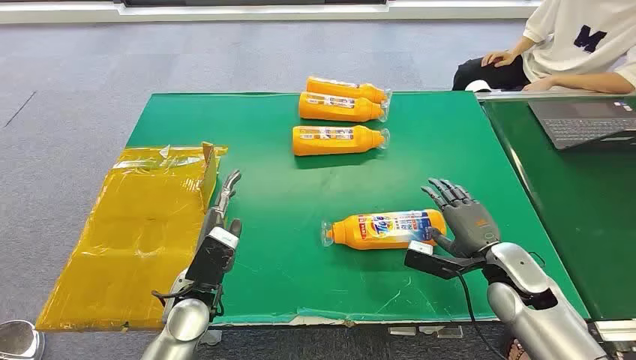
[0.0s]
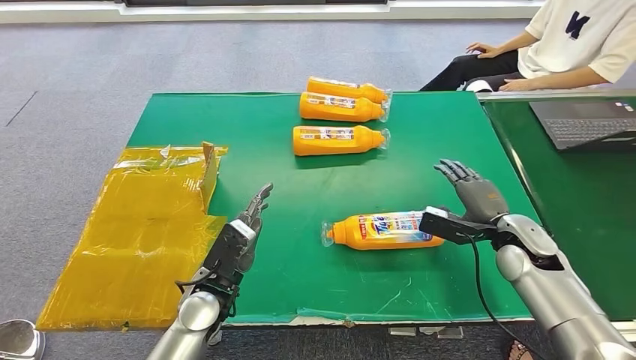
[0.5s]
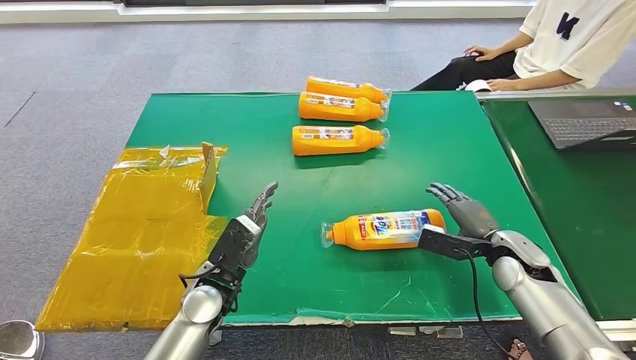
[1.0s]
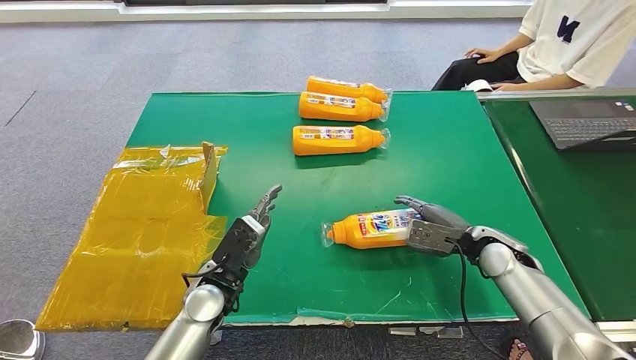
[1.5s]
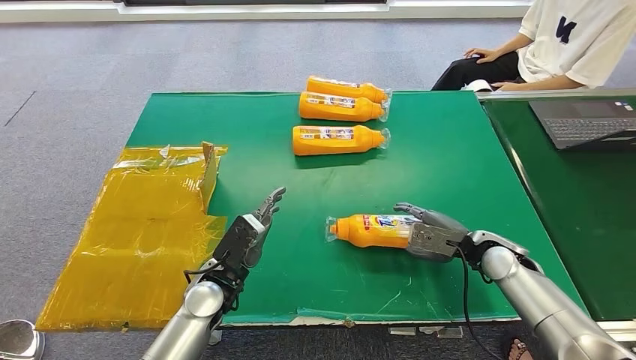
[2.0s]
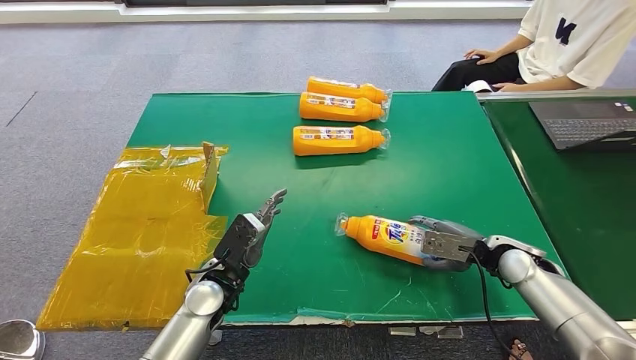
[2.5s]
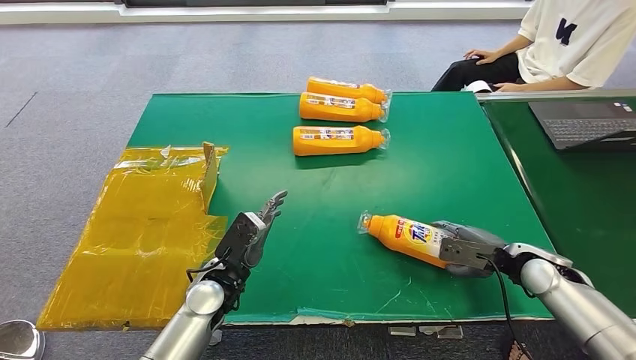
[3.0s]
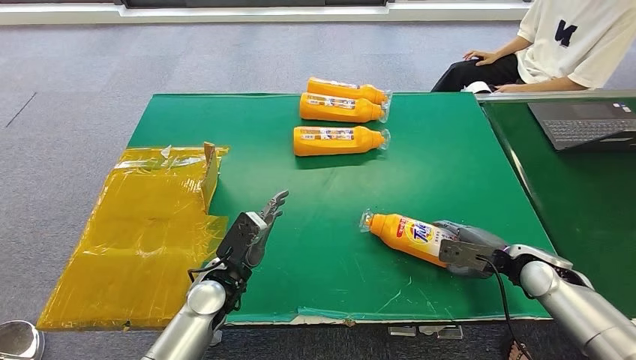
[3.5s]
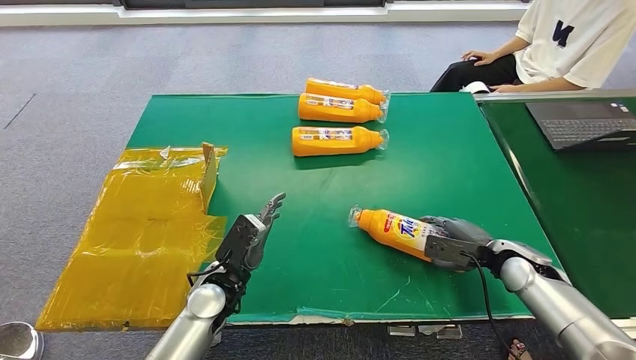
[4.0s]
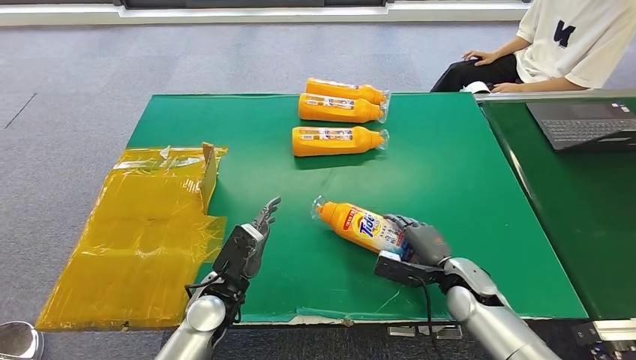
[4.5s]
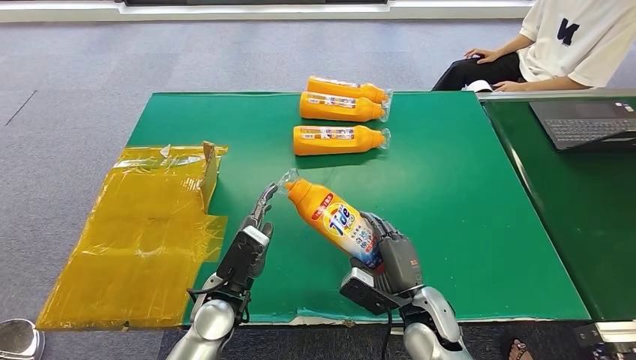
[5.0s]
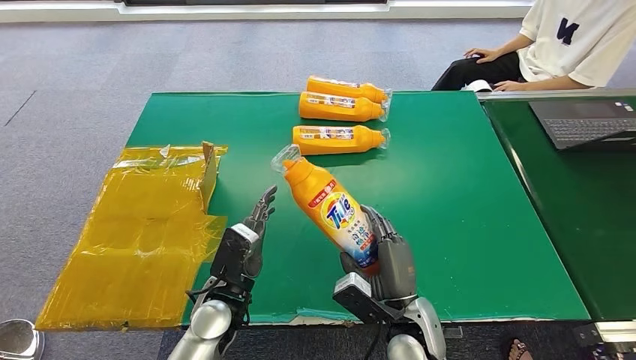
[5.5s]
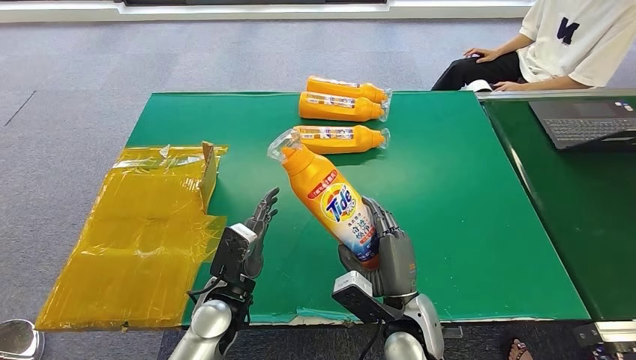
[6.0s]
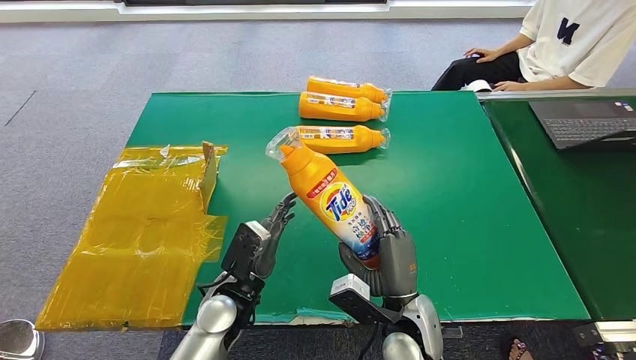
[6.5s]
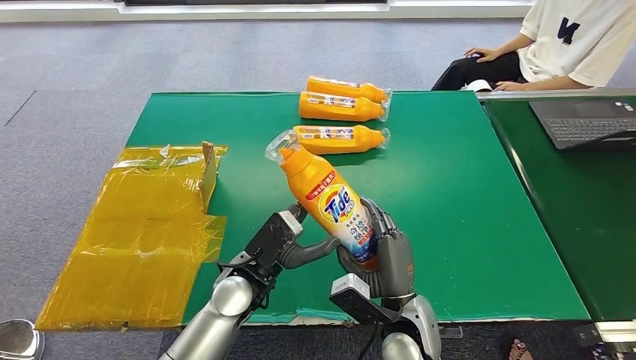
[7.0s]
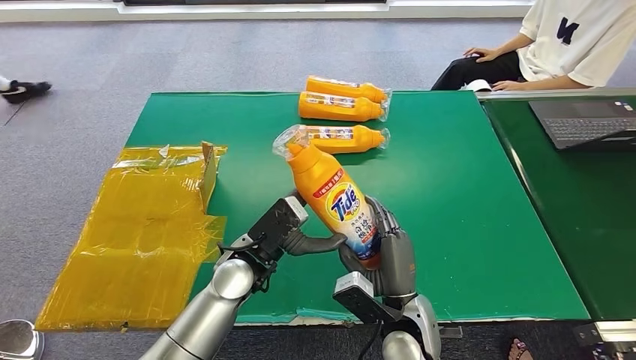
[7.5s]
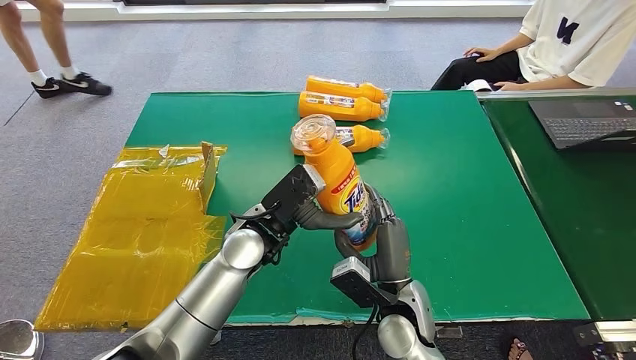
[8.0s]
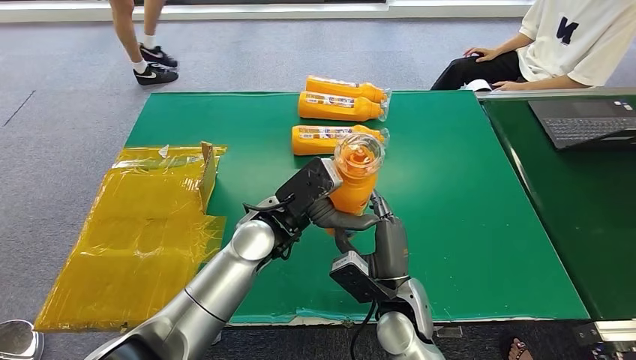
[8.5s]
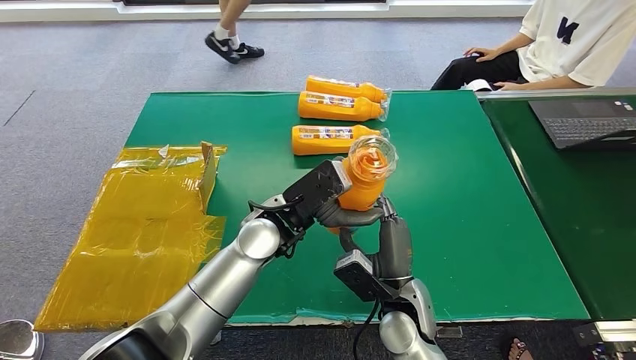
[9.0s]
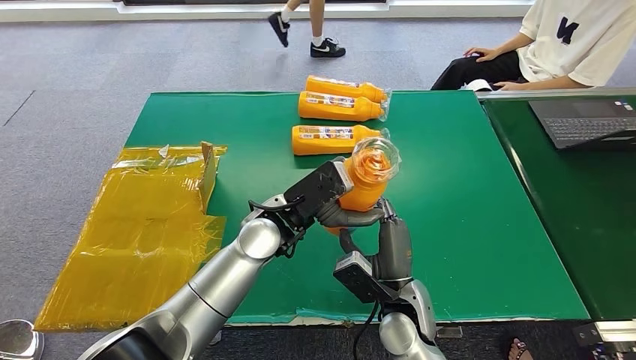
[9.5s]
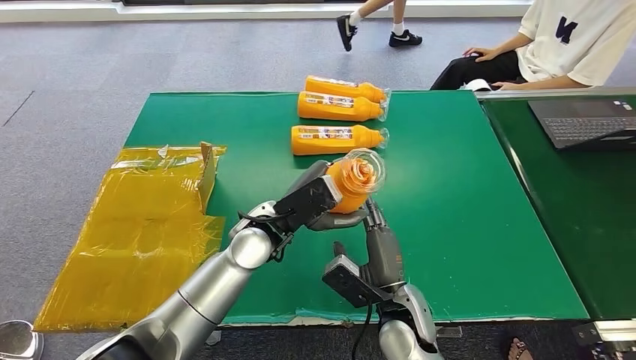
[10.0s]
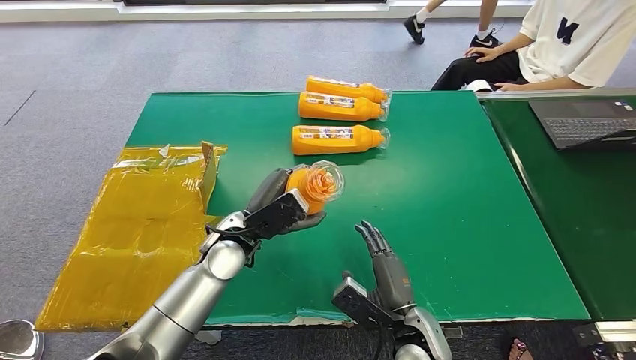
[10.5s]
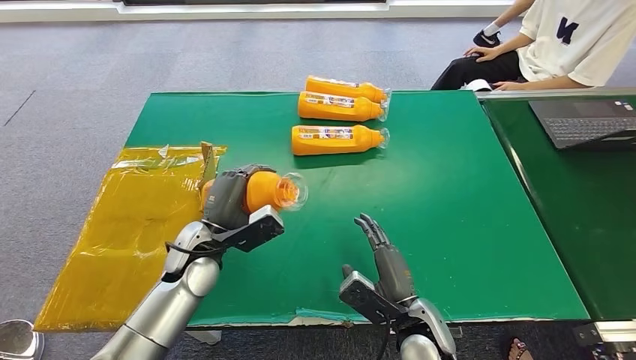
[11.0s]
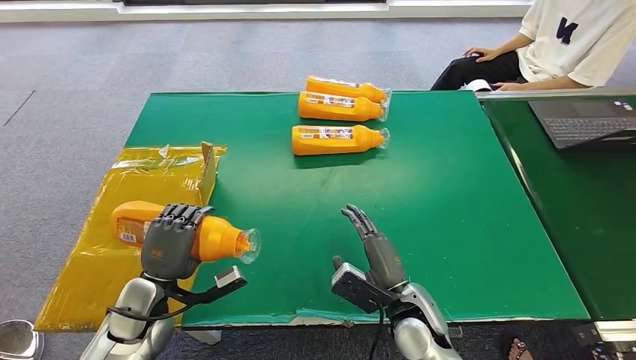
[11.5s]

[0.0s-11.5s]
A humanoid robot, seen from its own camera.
Step, 0.0s to 5.0s: Pick up the bottle from the table.
Step, 6.0s to 11.5s: Turn the bottle to the front side.
6.0s to 7.5s: The left hand travels upward and forward by approximately 10 cm.
7.5s to 9.5s: The left hand goes approximately 5 cm upward.
9.5s to 11.5s: The left hand moves to the left, downward and backward, approximately 30 cm.

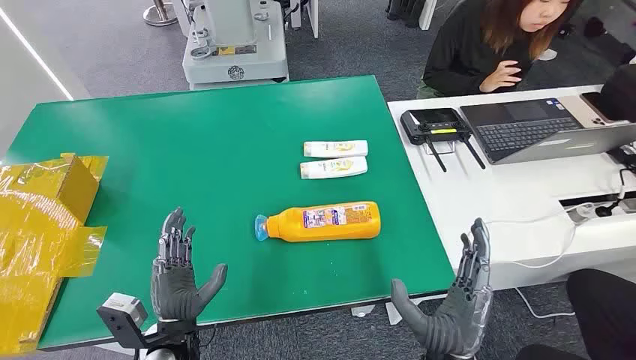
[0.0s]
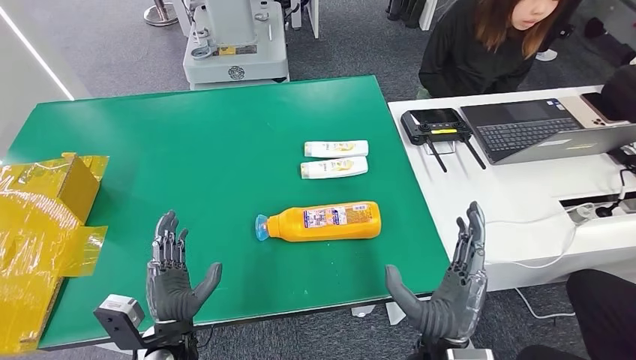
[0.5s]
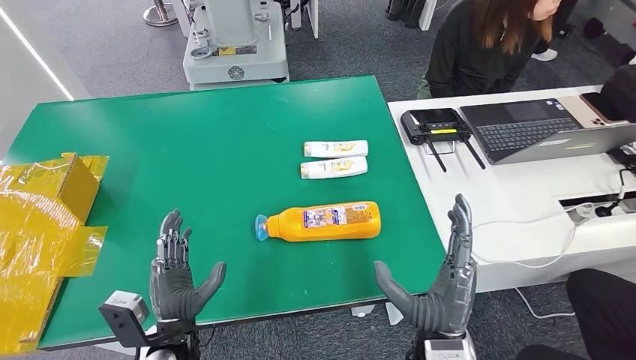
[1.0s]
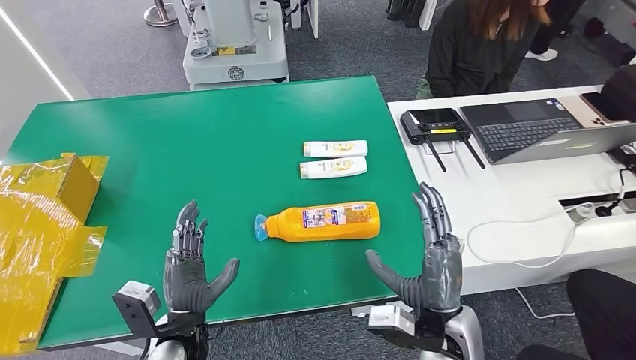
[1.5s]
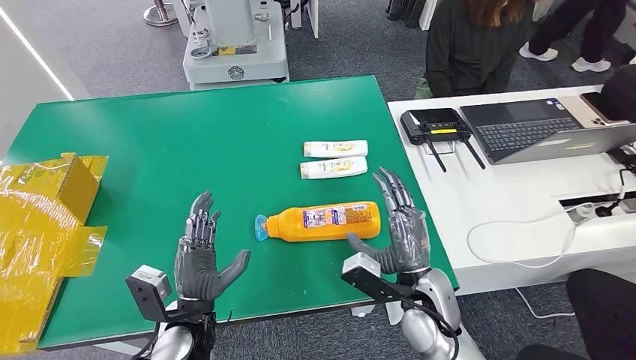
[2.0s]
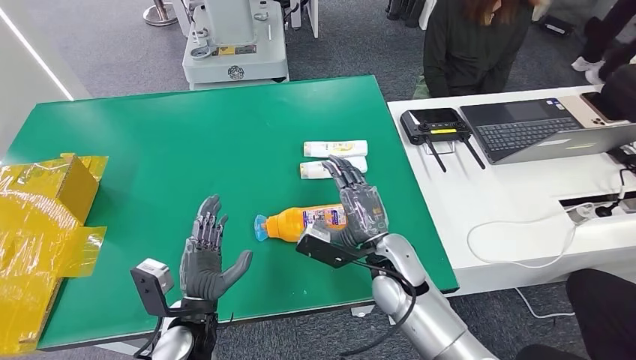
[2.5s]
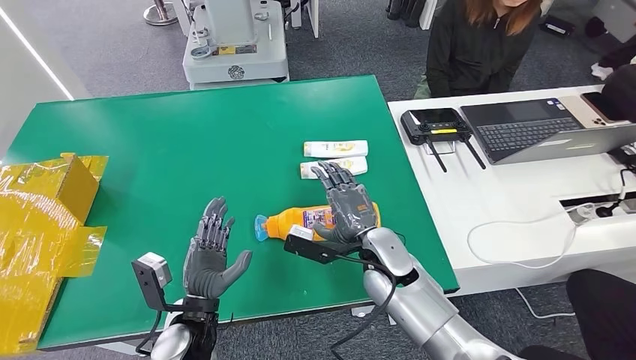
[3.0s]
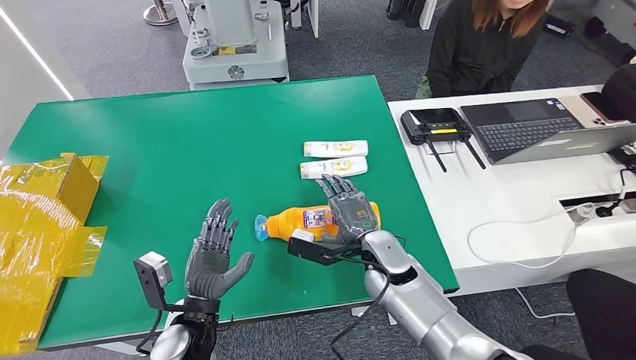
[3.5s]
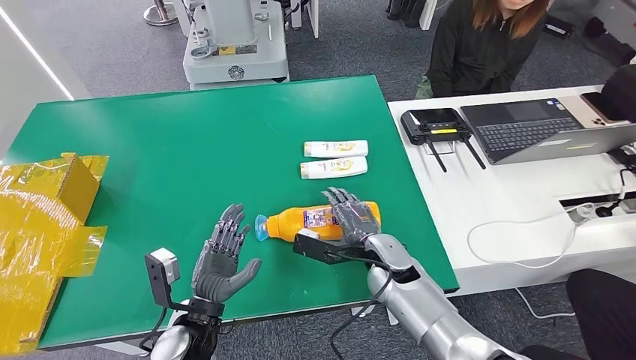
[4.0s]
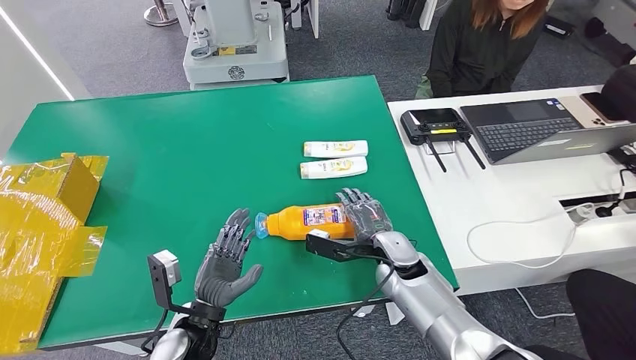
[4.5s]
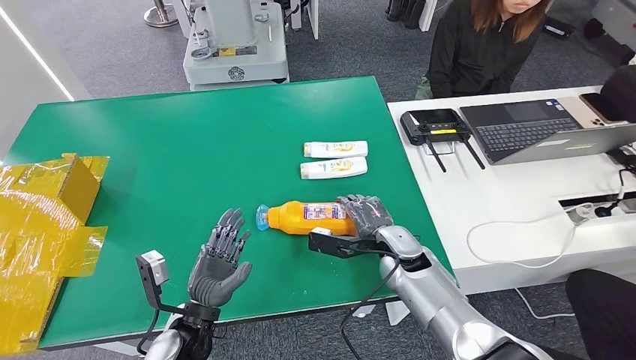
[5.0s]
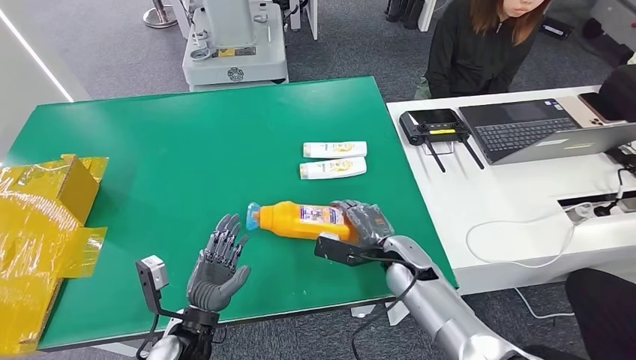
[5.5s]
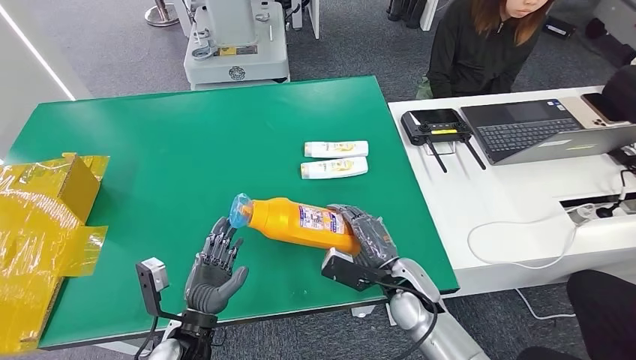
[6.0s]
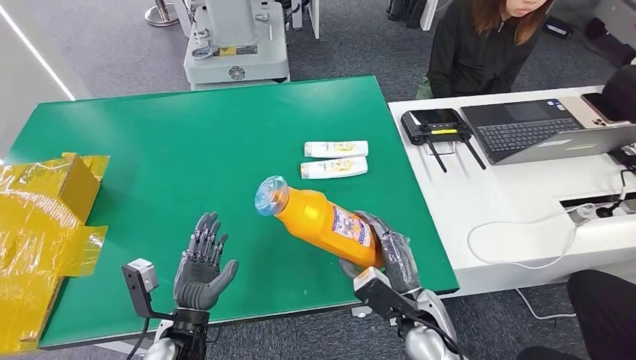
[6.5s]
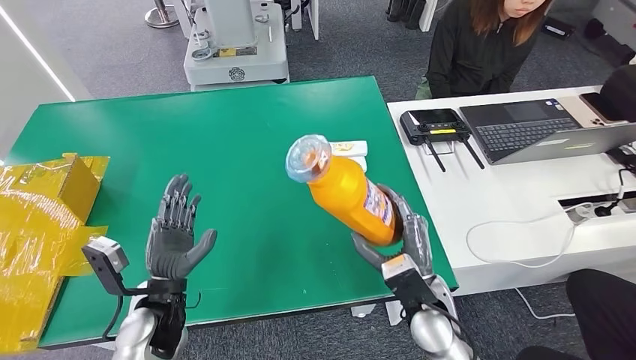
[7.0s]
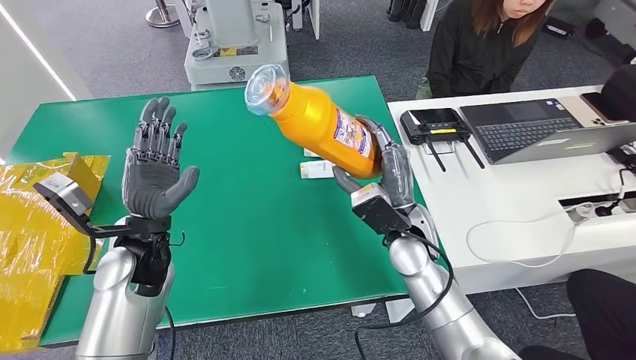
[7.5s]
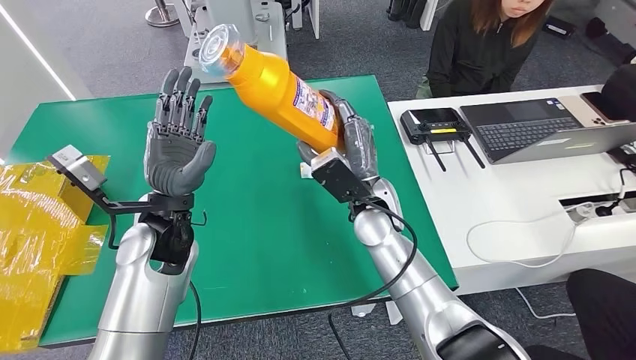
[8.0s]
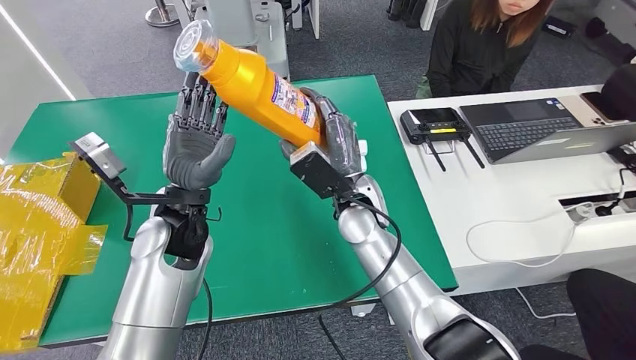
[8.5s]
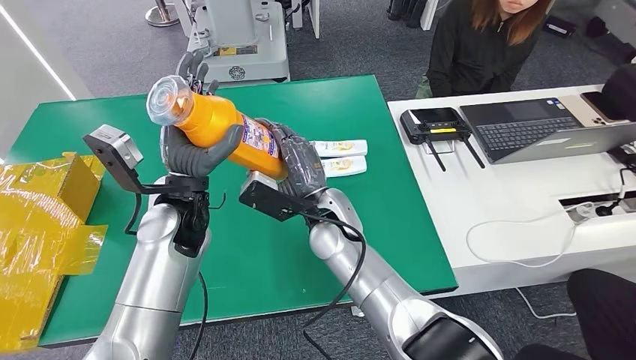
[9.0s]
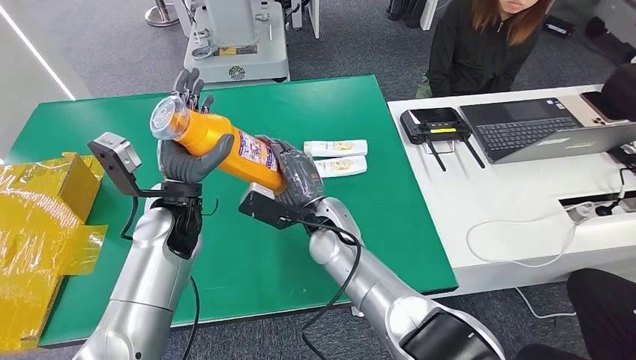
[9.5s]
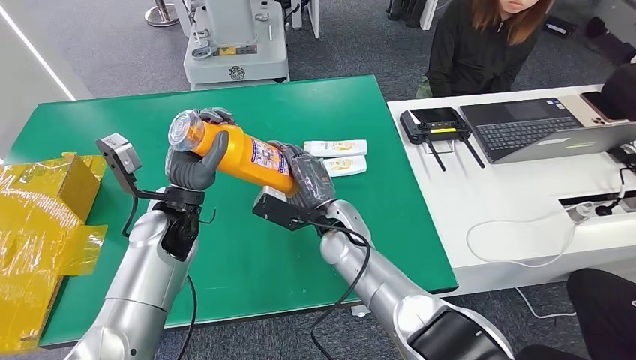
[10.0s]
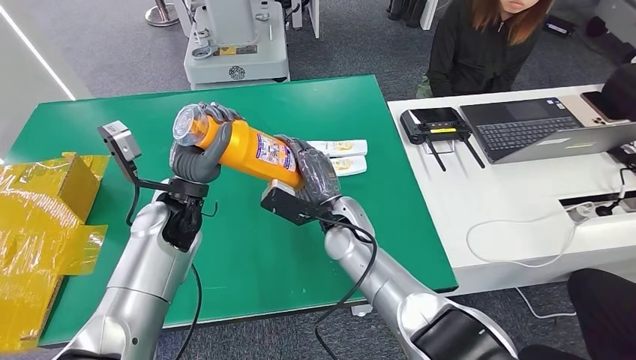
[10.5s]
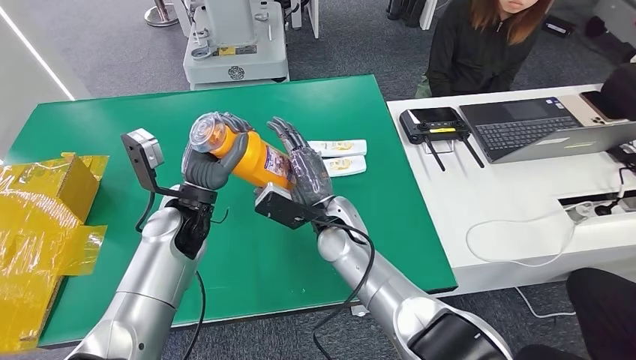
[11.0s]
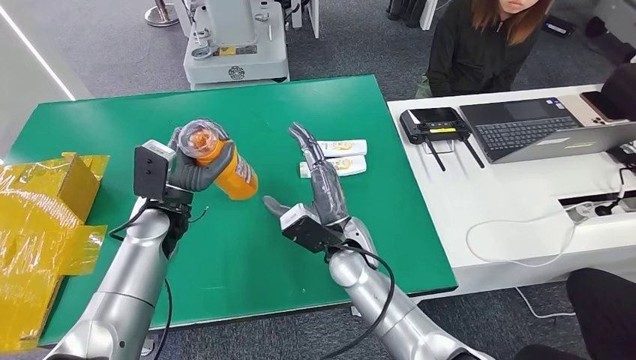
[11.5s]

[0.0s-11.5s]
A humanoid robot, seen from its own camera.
Step, 0.0s to 6.0s: Pick up the bottle from the table.
2.0s to 4.0s: The right hand is displaced forward by about 10 cm.
4.0s to 6.0s: The right hand heads backward, covering some 5 cm.
9.5s to 11.5s: The left hand moves approximately 5 cm.
